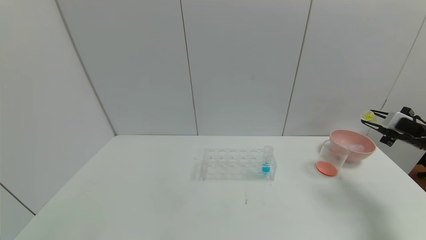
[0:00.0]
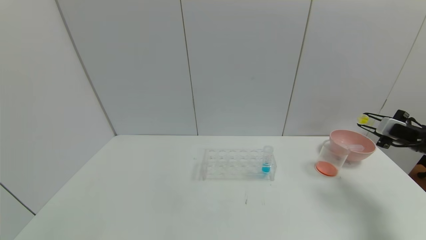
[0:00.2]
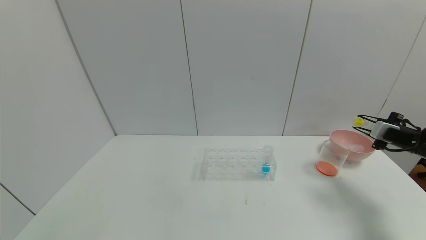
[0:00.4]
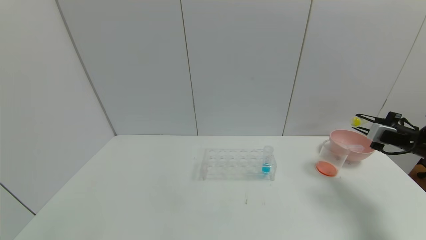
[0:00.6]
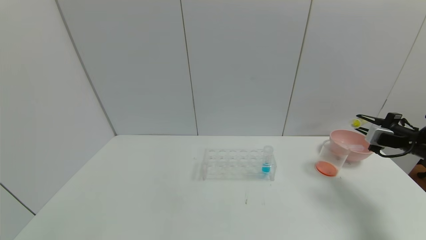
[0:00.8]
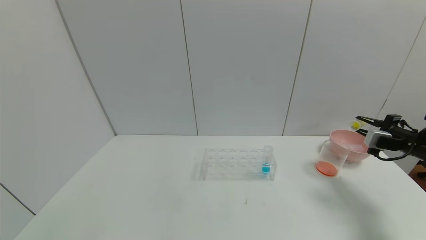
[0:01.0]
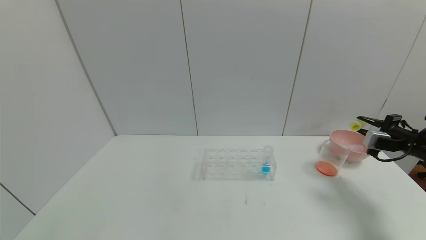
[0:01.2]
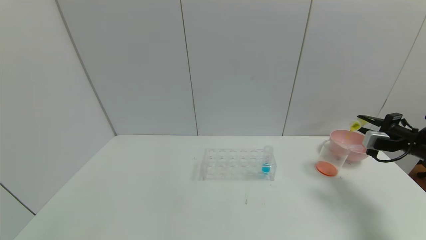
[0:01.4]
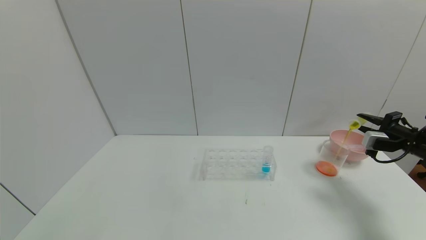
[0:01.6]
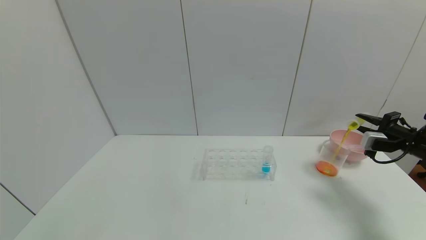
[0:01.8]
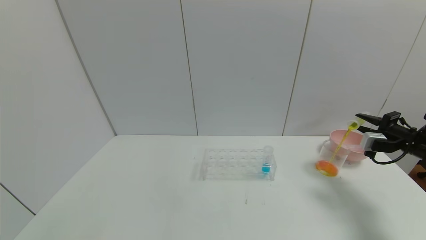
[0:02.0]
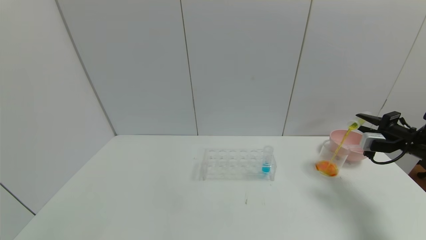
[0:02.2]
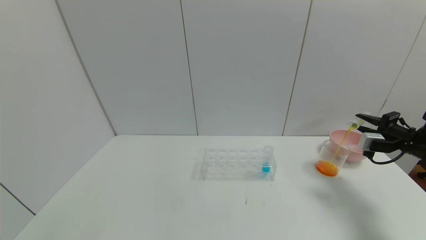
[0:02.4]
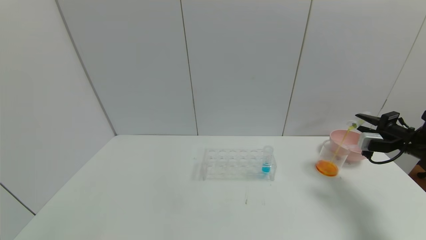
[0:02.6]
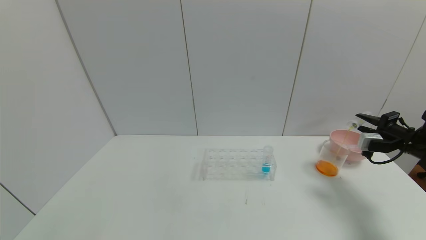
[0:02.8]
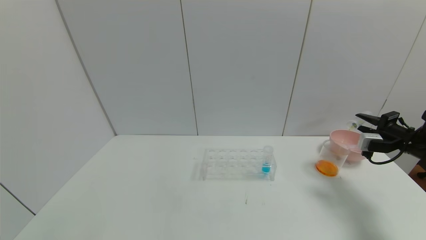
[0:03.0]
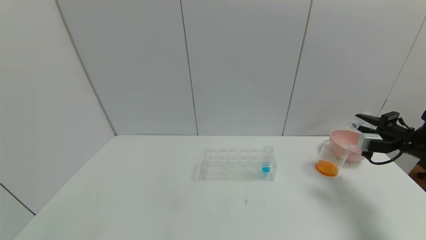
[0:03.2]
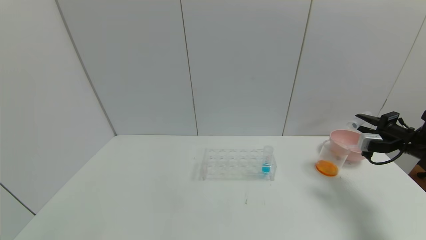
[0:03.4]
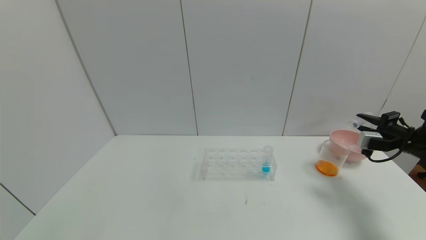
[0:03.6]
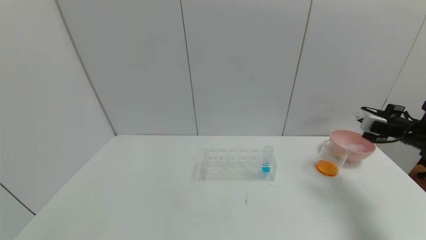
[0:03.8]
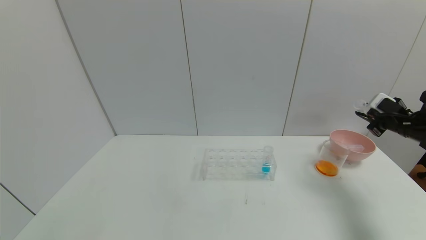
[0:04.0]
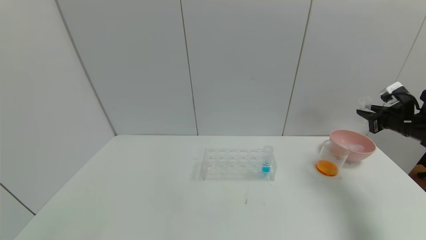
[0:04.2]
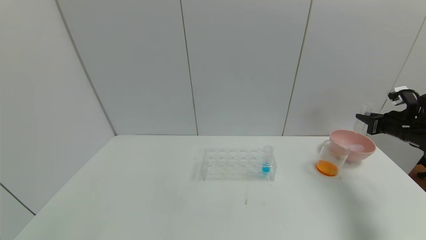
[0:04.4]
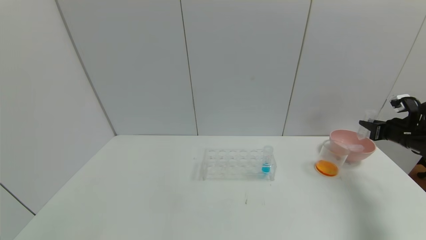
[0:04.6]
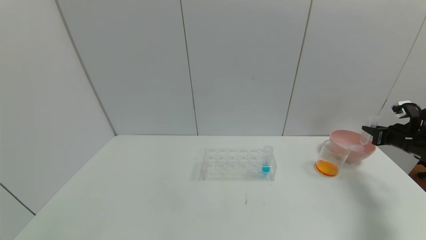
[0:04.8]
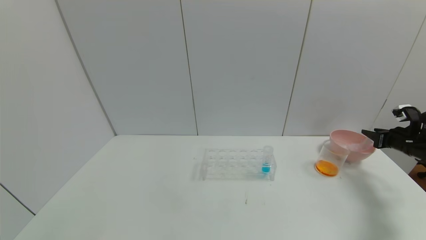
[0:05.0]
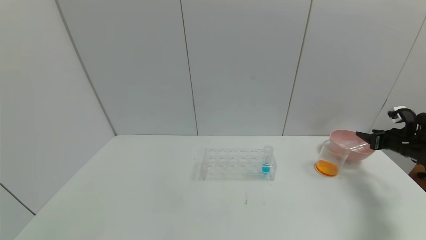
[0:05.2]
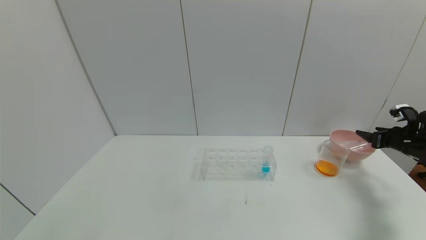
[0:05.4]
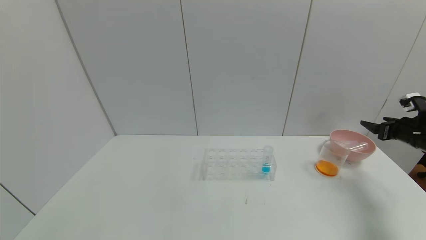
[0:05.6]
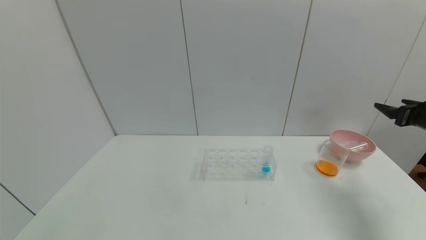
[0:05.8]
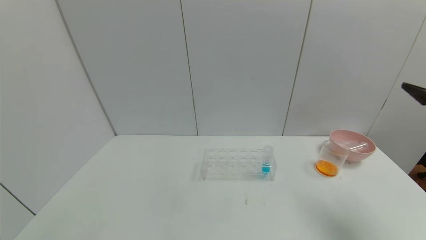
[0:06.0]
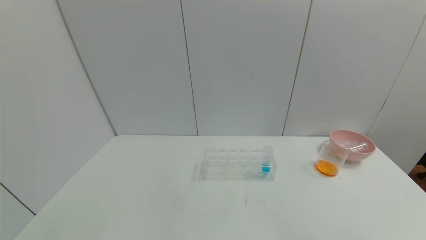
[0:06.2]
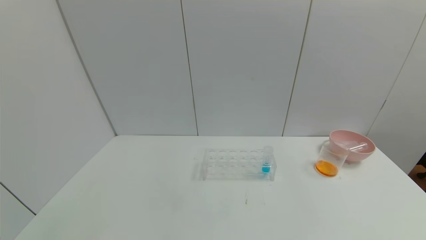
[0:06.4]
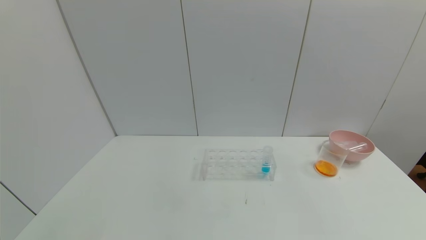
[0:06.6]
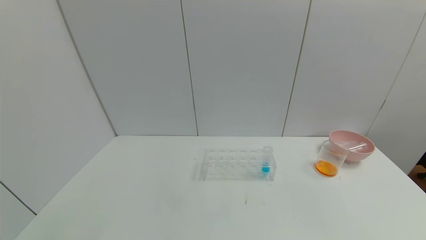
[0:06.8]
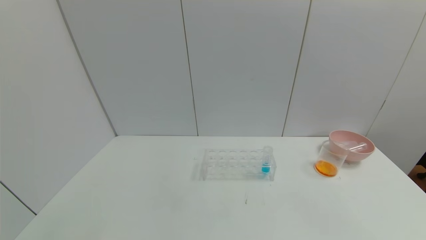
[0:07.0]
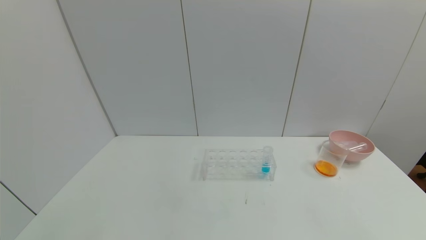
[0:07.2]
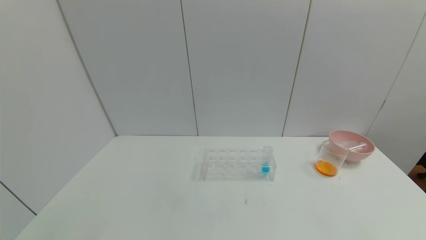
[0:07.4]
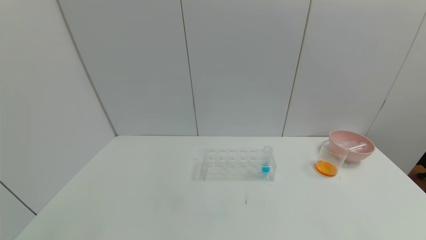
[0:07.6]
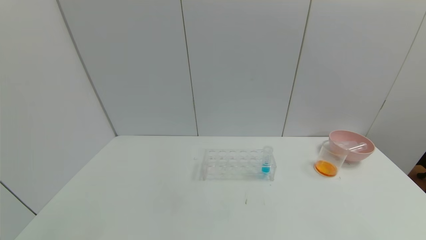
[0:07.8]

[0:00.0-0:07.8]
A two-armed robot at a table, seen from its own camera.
Task of the whole recording: pick up the test tube with yellow pigment and the test tube with red pigment by grippers and pour them into the beaker.
Step, 0:00.0 to 0:03.4: Pour the yellow reagent into the graduated cylinder with the right gripper.
Step, 0:03.6 to 0:05.0: Place the test tube into the bowl with the right gripper.
0:01.6 to 0:03.2: There are only small adjustments of the grippers.
0:04.6 to 0:06.2: The right gripper heads backward and upward, covering about 25 cm, and opens its fingers.
